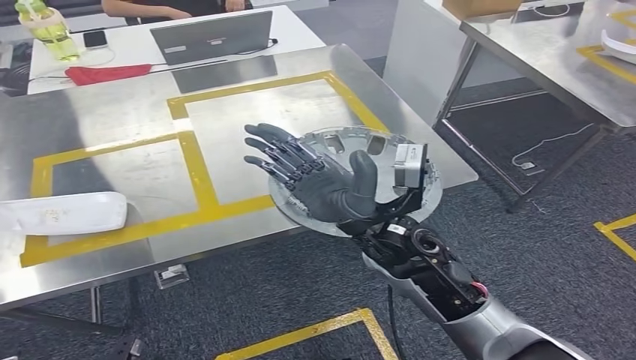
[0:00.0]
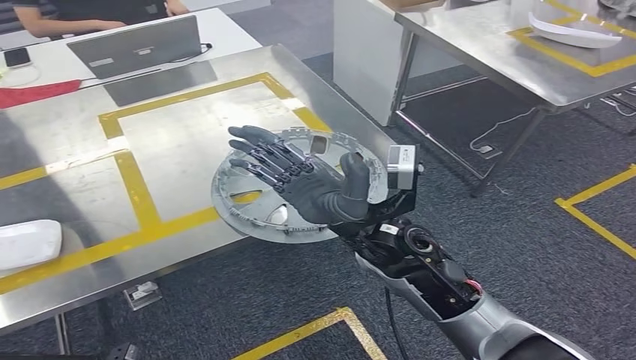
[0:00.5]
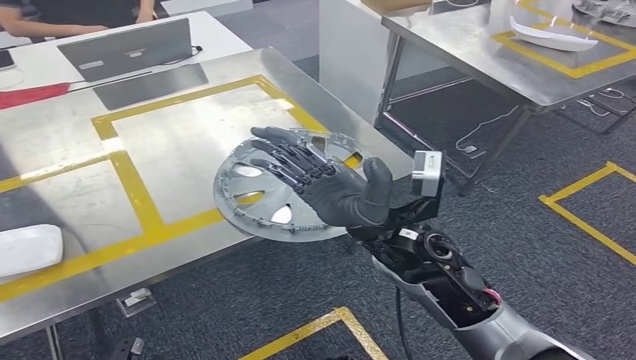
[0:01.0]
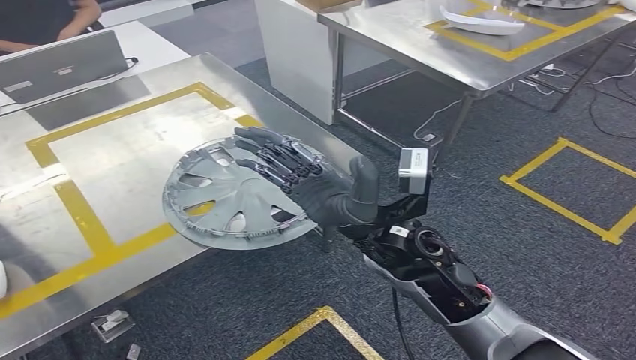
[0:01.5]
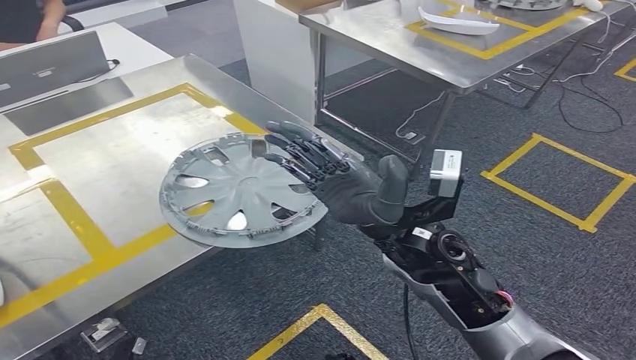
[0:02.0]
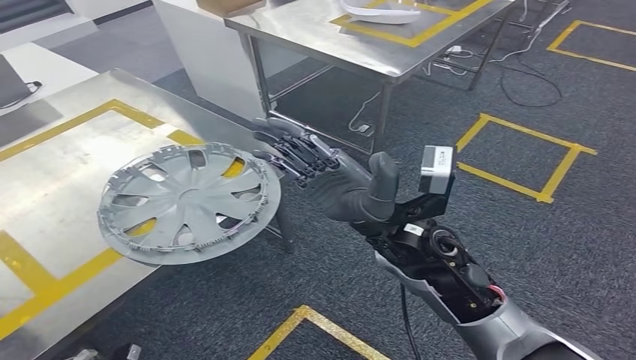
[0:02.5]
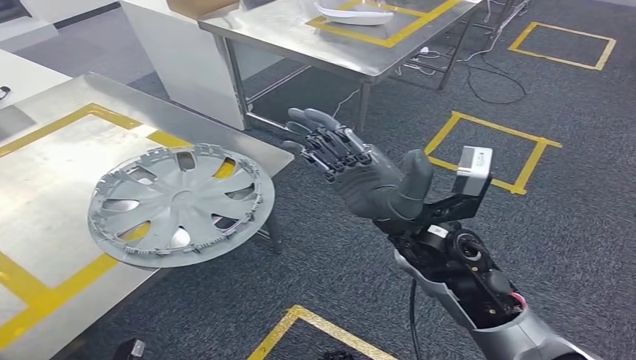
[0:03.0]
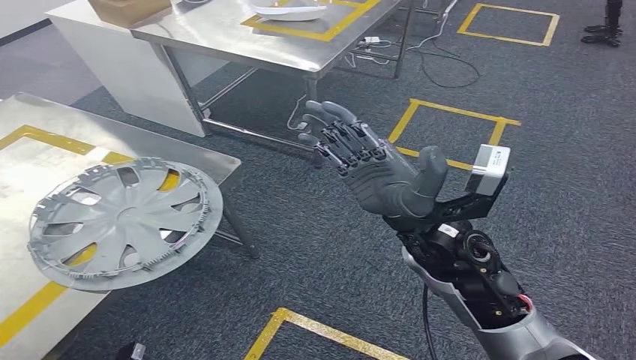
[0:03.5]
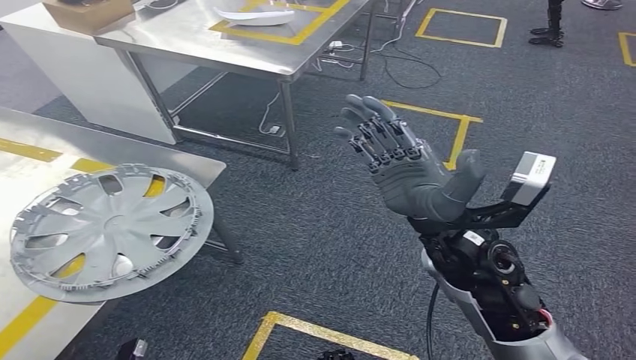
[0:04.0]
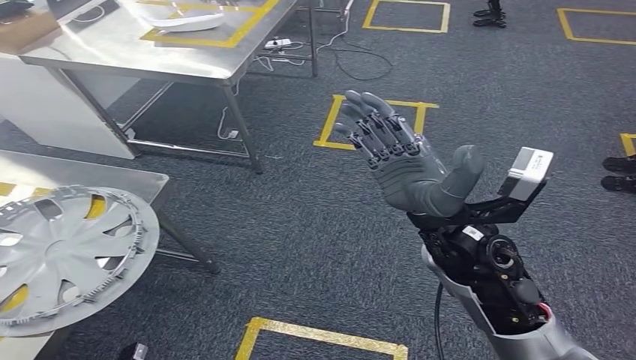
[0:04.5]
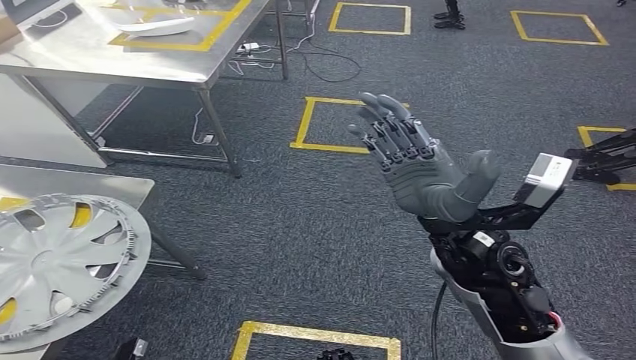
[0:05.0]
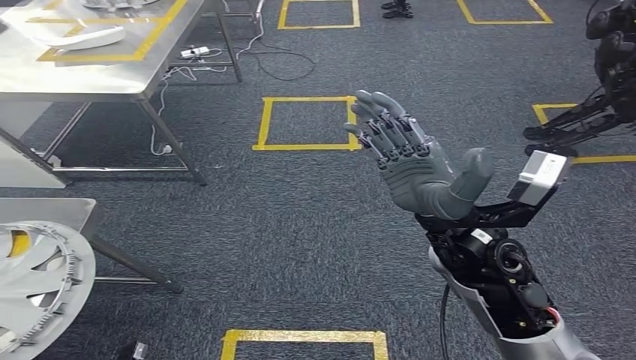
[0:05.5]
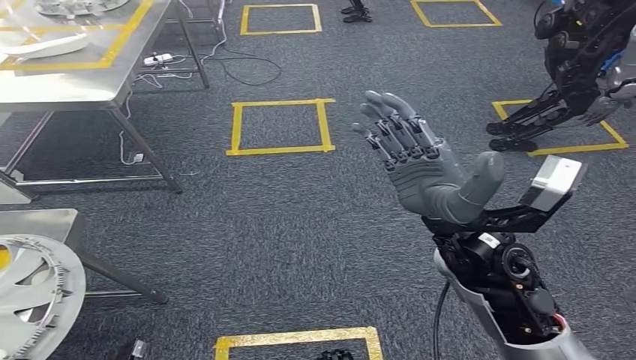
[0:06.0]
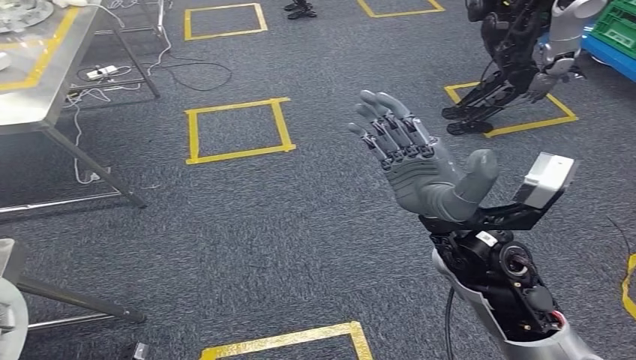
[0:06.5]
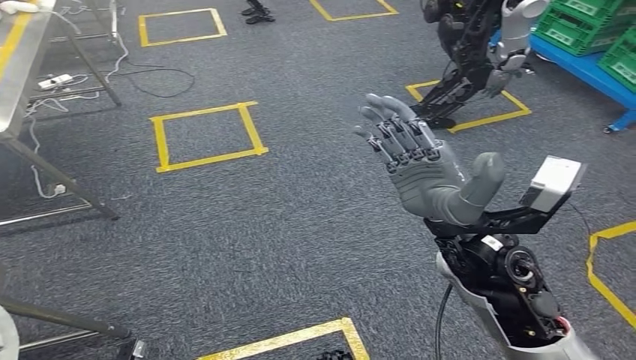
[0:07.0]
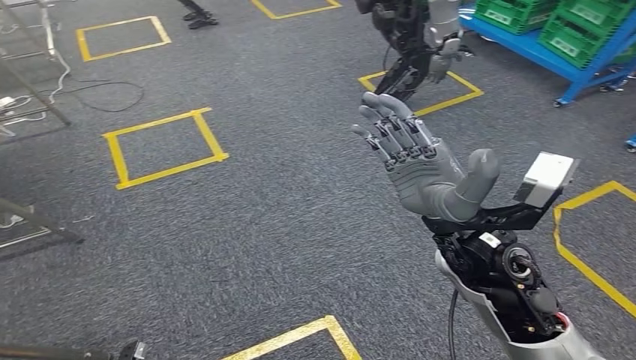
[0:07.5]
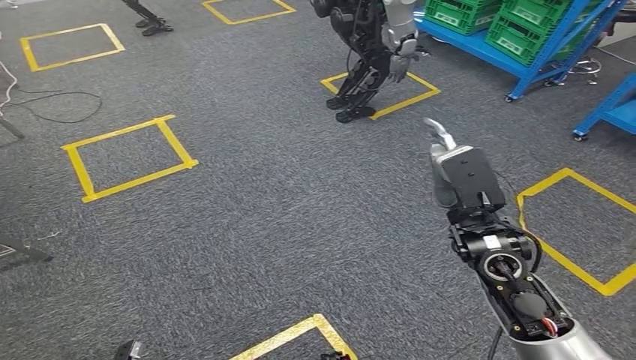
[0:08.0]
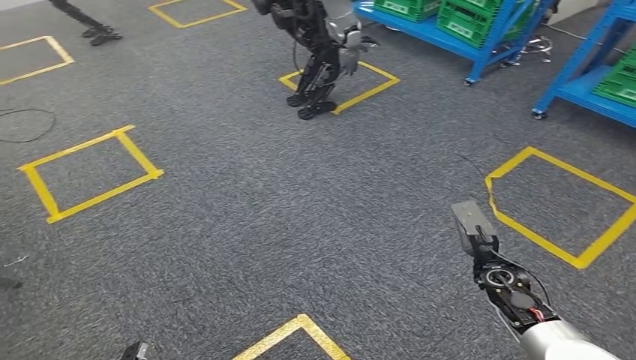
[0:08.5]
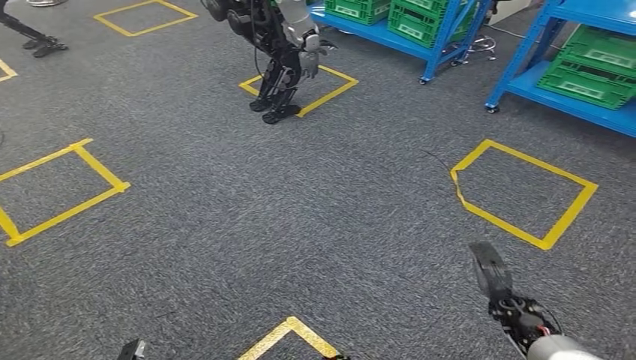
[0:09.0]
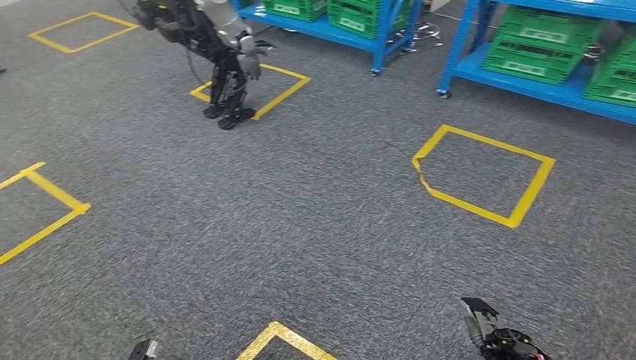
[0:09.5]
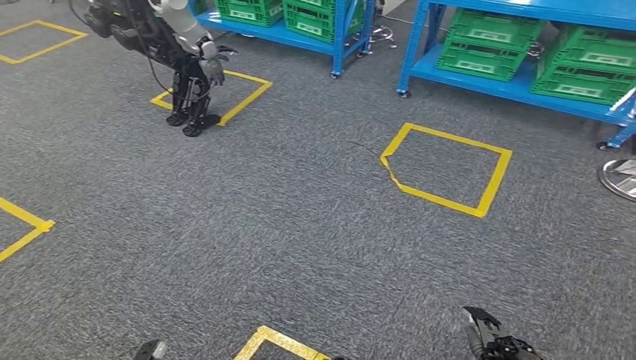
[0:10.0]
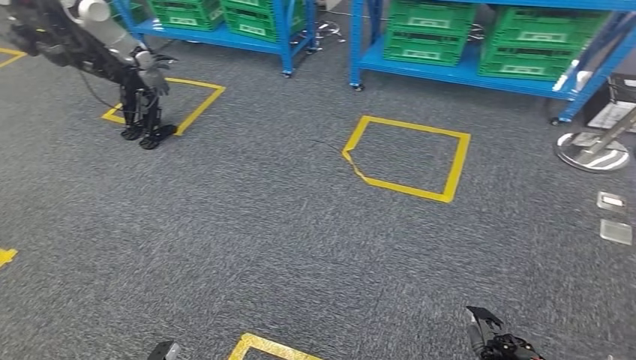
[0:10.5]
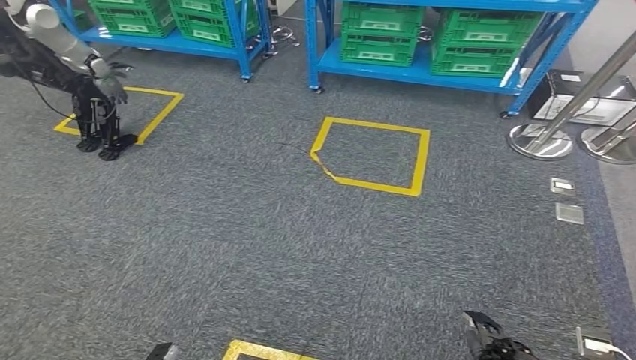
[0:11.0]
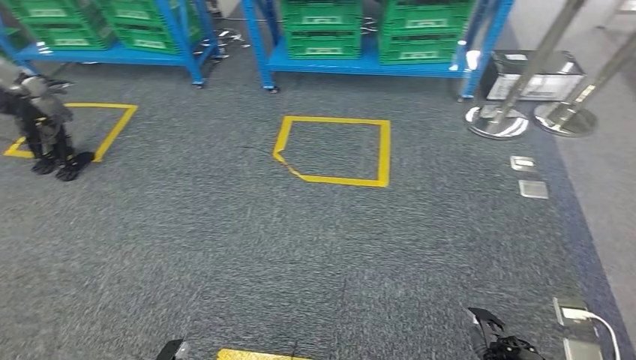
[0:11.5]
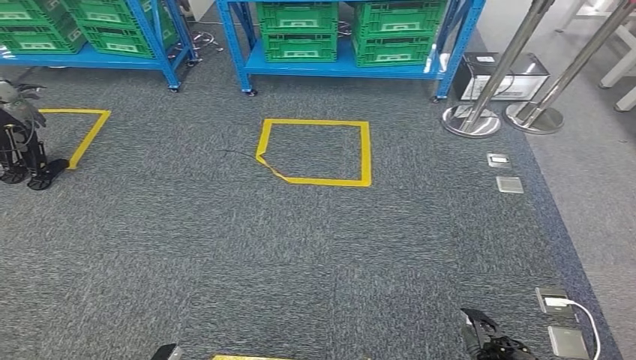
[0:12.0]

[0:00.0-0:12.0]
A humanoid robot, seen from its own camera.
Step, 0:00.0 to 0:04.0: Insert the small component into the corresponding slot on the workbench.

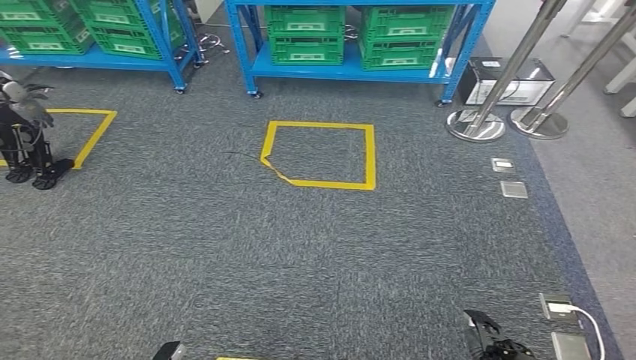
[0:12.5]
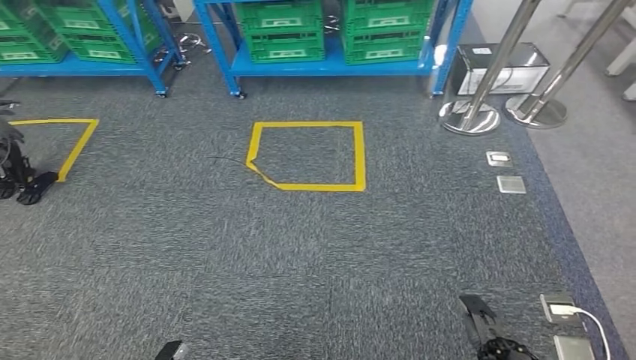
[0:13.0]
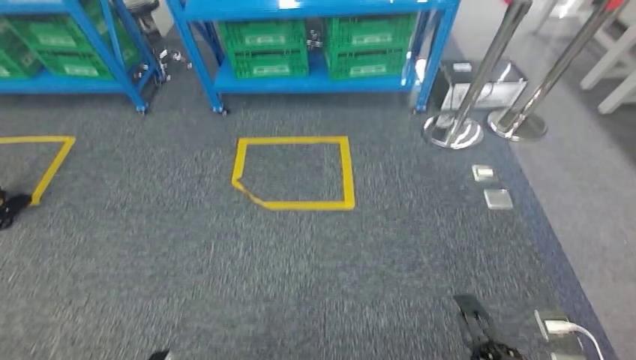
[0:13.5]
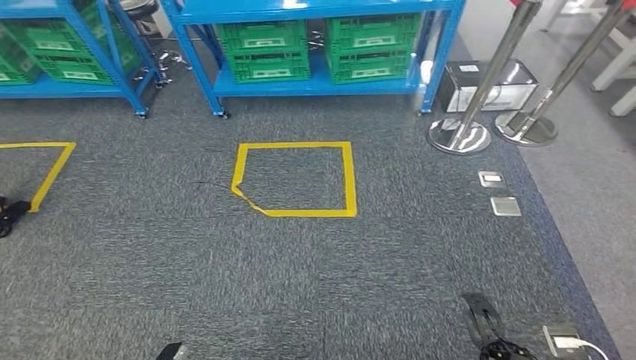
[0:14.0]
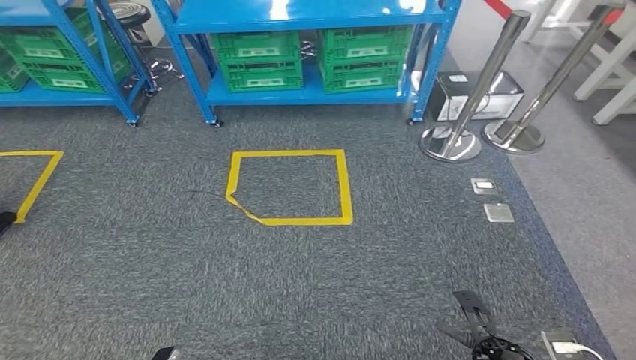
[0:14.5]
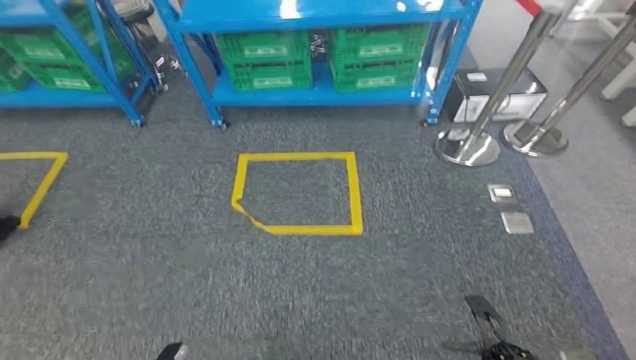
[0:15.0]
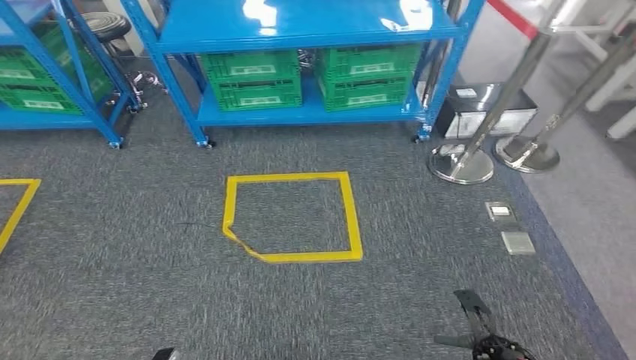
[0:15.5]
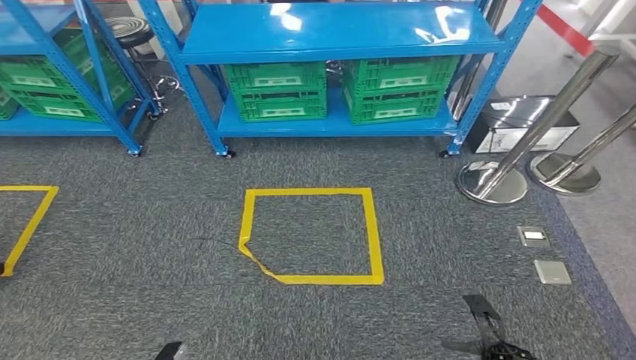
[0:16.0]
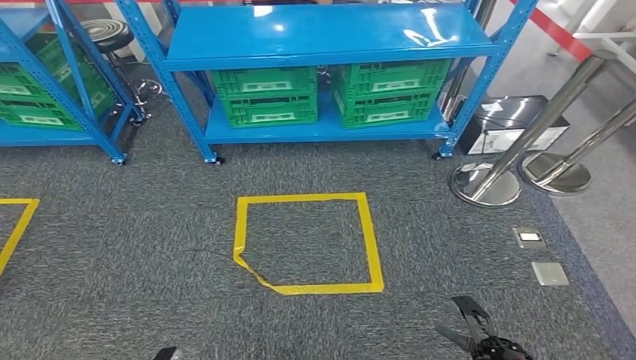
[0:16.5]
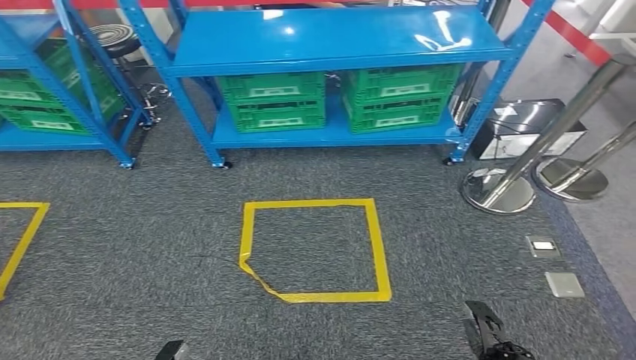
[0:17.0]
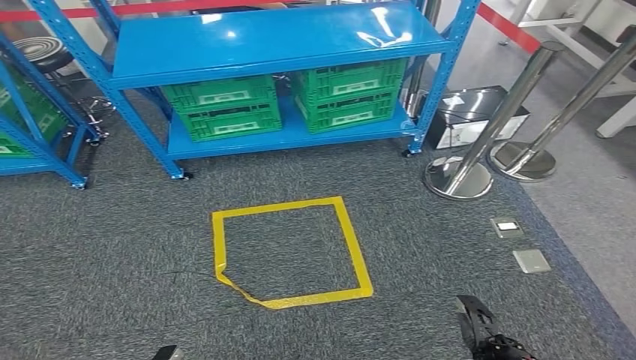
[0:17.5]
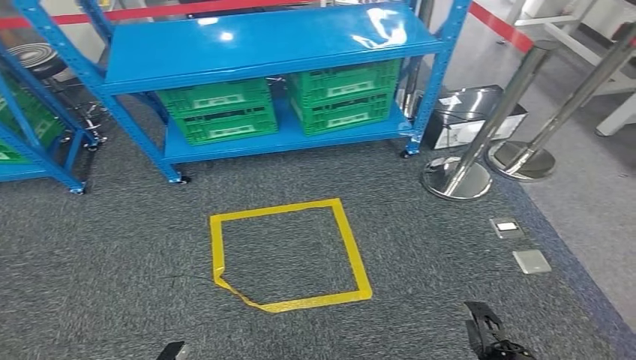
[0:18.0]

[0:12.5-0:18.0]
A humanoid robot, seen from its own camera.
Step, 0:12.5 to 0:18.0: Move to the initial position of the workbench.
